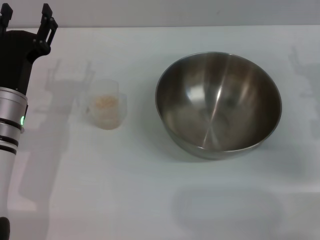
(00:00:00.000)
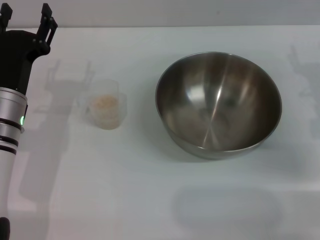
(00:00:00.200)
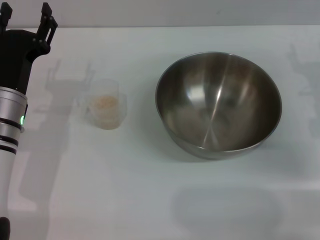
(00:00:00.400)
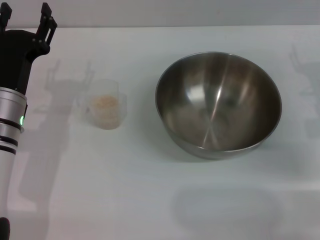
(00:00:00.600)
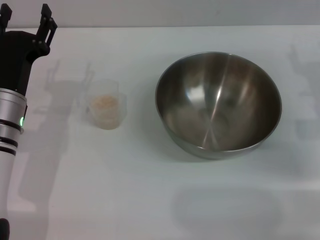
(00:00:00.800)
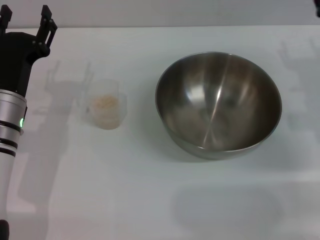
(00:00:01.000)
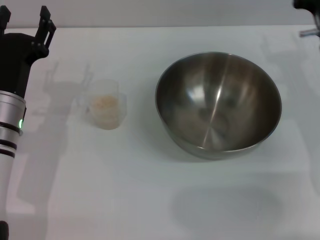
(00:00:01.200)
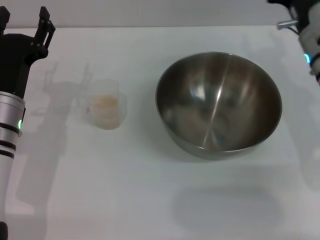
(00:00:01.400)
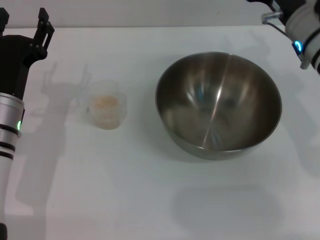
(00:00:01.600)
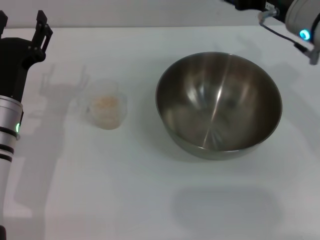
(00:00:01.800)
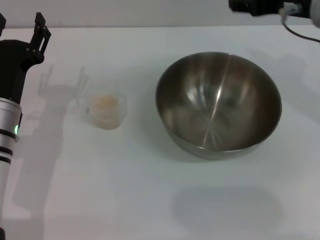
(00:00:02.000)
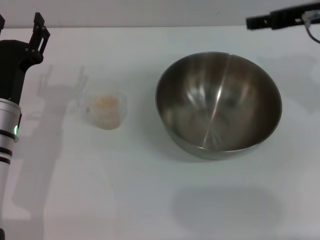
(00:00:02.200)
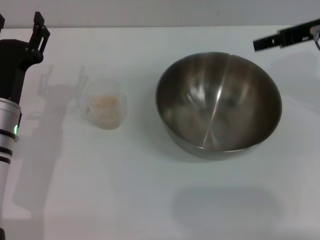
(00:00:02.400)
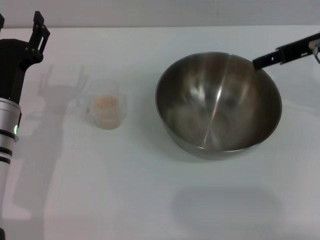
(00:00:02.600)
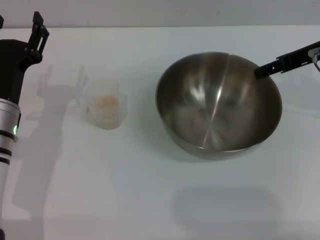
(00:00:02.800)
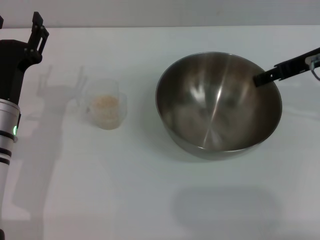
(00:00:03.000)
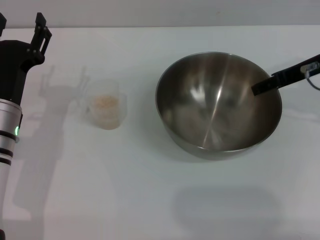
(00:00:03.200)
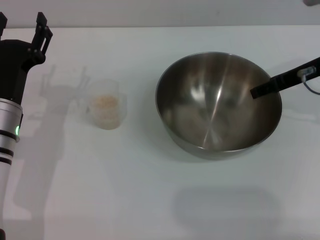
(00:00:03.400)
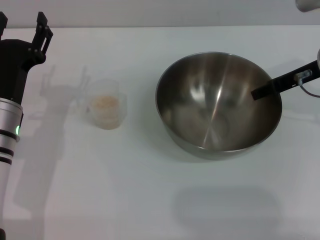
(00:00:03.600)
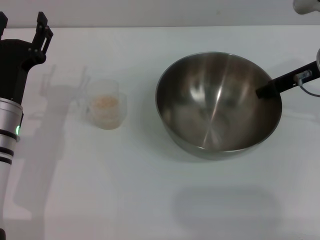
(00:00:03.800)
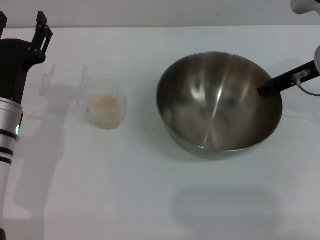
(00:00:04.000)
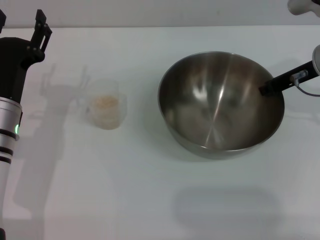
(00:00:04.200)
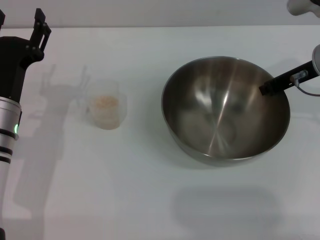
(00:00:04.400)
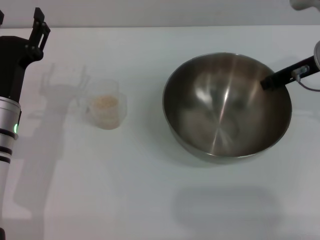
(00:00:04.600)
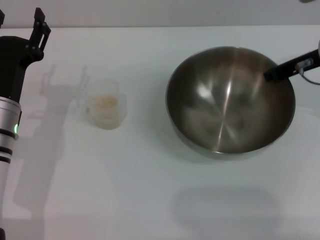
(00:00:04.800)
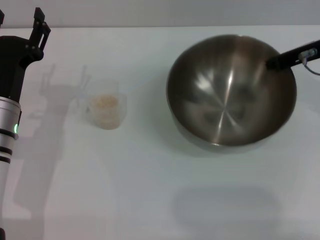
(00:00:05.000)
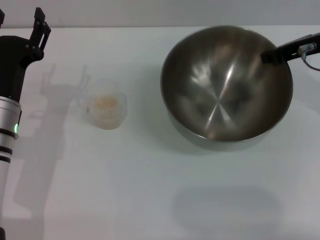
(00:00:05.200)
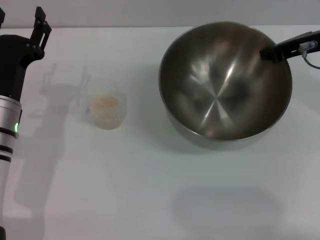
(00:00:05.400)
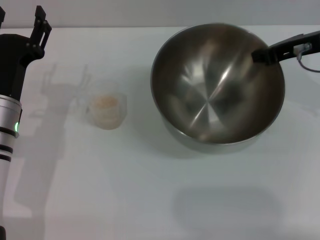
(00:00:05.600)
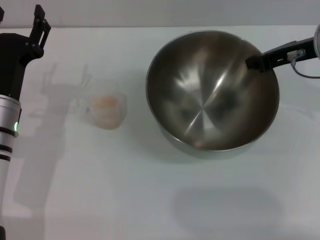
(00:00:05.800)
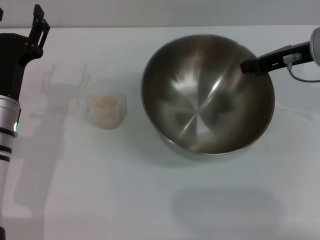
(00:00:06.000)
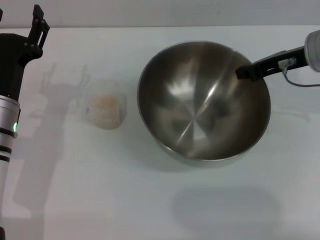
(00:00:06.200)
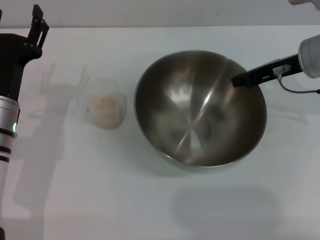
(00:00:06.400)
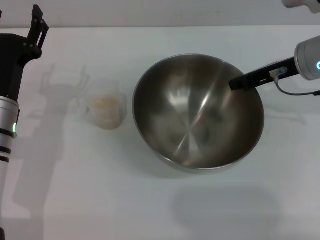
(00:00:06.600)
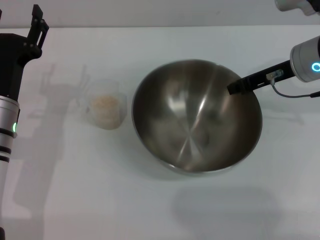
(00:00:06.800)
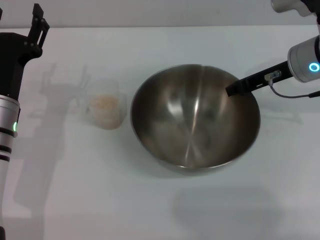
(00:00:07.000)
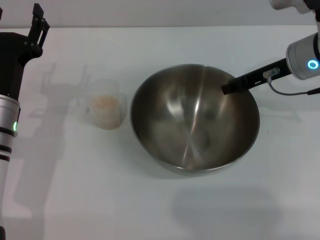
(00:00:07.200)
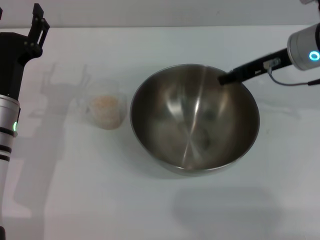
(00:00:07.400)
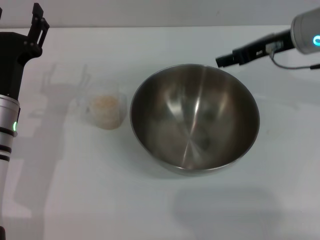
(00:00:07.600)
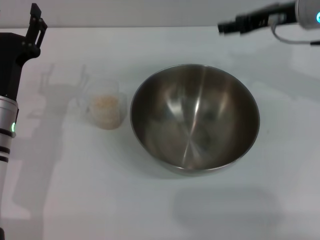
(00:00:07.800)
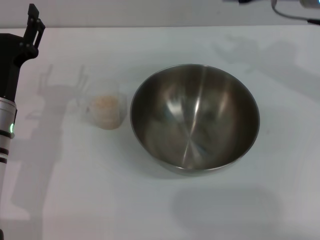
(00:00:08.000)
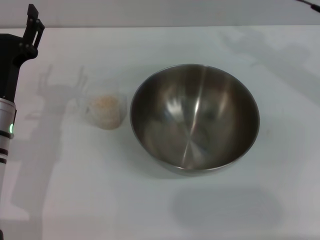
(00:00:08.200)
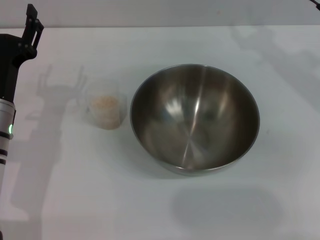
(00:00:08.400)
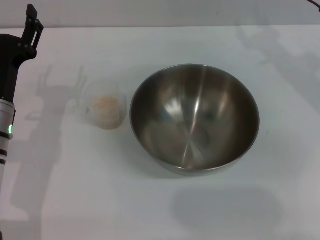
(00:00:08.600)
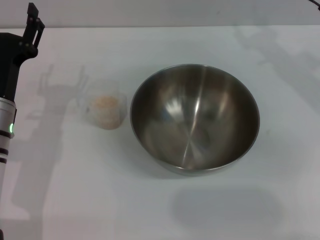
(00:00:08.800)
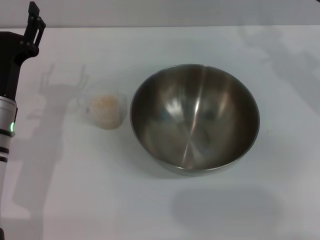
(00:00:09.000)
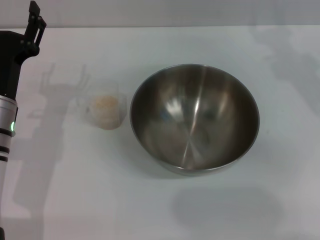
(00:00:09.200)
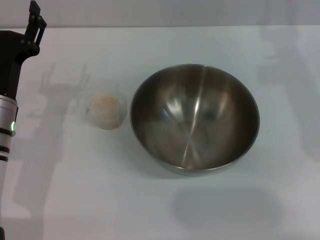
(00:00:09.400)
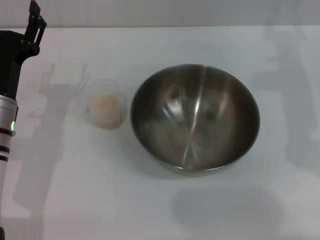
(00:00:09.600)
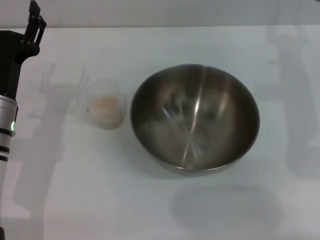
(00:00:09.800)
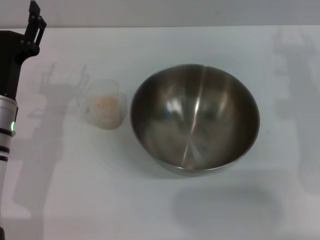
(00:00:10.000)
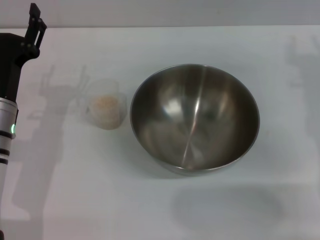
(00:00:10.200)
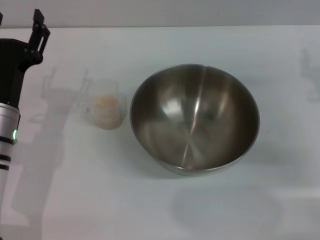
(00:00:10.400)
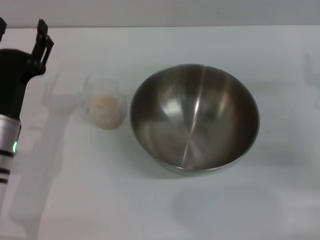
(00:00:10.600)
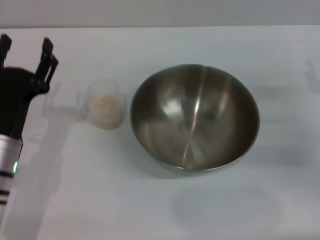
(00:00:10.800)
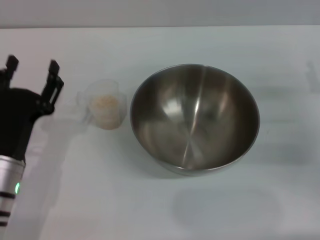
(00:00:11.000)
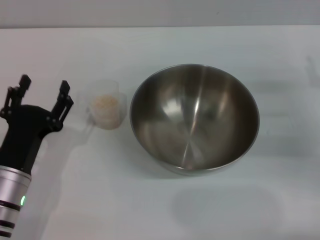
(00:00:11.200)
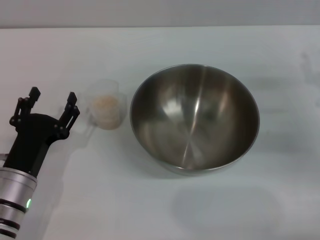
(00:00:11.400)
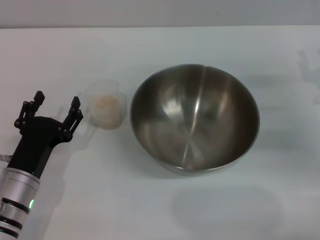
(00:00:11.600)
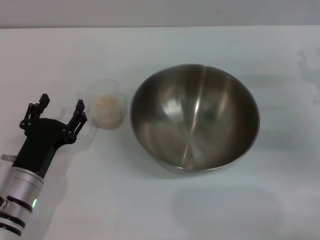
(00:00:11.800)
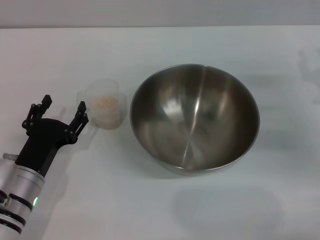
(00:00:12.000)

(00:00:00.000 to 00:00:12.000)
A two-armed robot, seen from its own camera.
Task of the whole recording: Place the bowl in the middle of the table with one hand and pour the rice from the grain cup into it with the other hand.
Step, 00:00:00.000 - 00:00:05.400: Pick up the bowl with the right gripper.
Step, 00:00:05.600 - 00:00:07.600: Place the bowl in the center of view with the right gripper.
00:00:00.000 - 00:00:01.600: The right gripper shifts approximately 10 cm to the left and upward.
00:00:01.600 - 00:00:03.000: The right gripper travels to the right by approximately 5 cm.
00:00:03.000 - 00:00:04.400: The right gripper closes up.
00:00:06.000 - 00:00:07.600: The right gripper opens.
00:00:10.400 - 00:00:12.000: The left gripper is displaced downward and backward by about 10 cm.

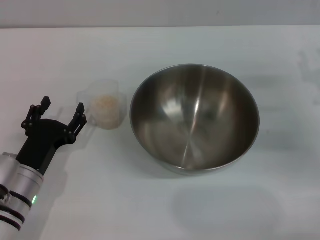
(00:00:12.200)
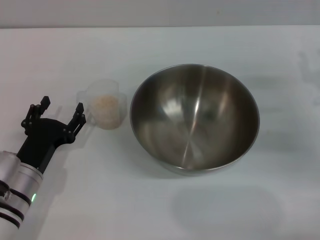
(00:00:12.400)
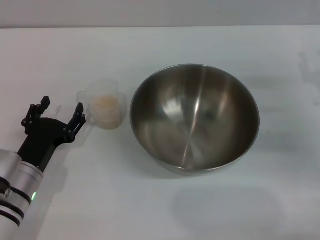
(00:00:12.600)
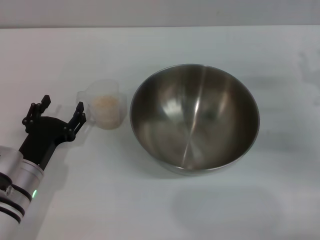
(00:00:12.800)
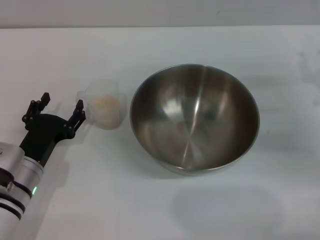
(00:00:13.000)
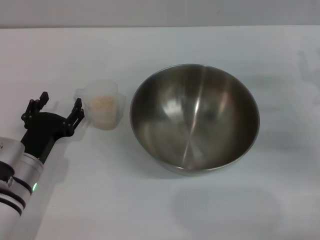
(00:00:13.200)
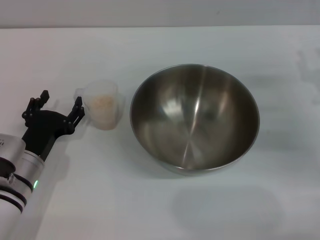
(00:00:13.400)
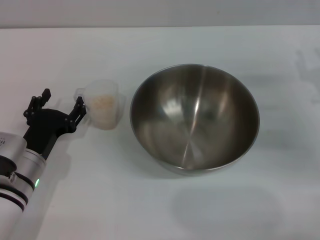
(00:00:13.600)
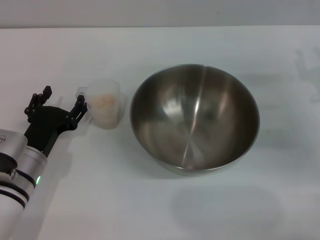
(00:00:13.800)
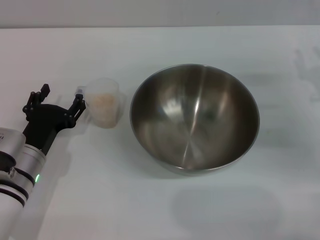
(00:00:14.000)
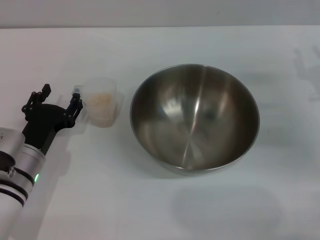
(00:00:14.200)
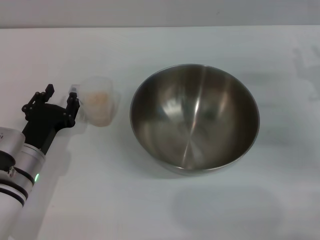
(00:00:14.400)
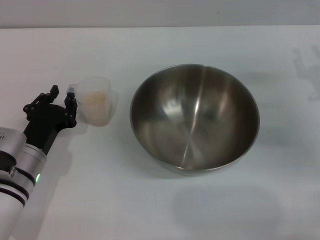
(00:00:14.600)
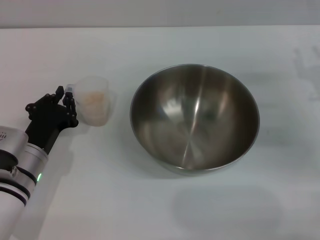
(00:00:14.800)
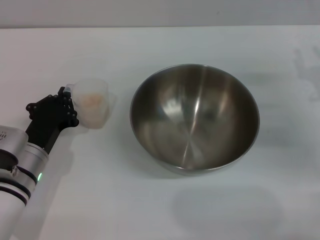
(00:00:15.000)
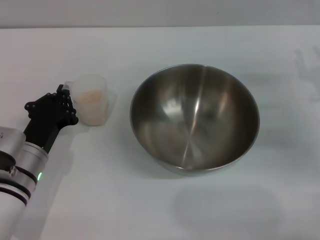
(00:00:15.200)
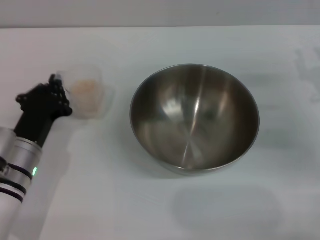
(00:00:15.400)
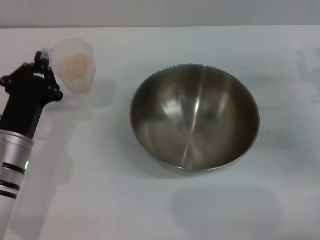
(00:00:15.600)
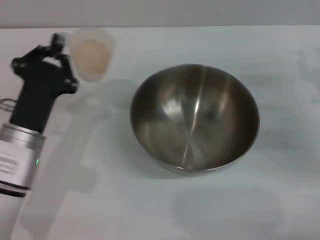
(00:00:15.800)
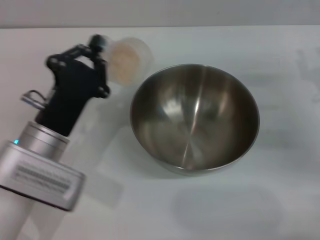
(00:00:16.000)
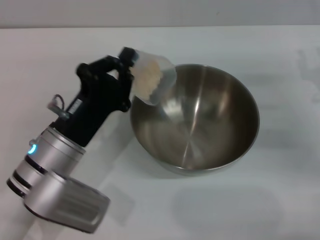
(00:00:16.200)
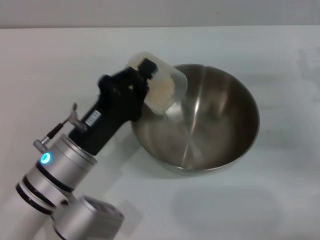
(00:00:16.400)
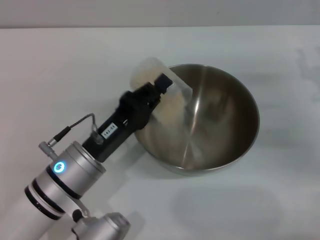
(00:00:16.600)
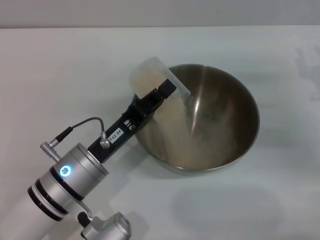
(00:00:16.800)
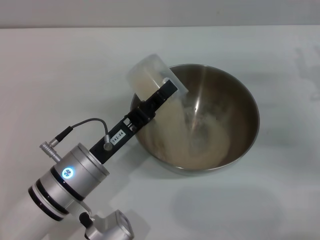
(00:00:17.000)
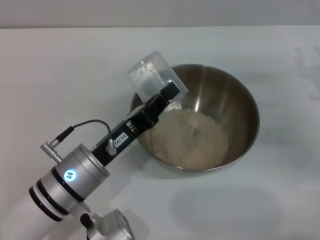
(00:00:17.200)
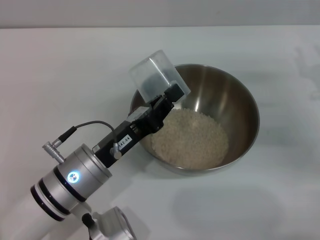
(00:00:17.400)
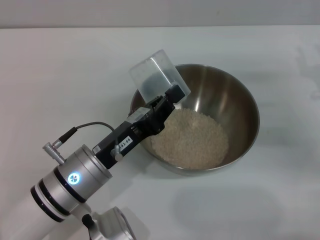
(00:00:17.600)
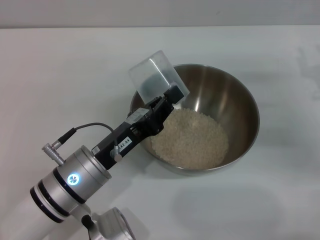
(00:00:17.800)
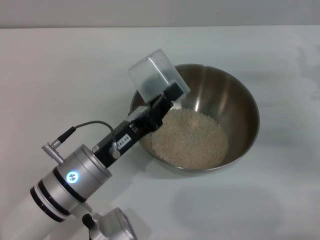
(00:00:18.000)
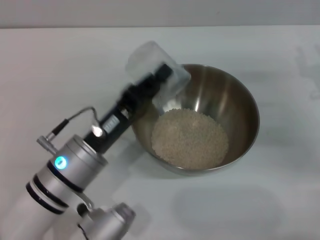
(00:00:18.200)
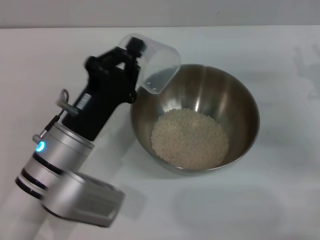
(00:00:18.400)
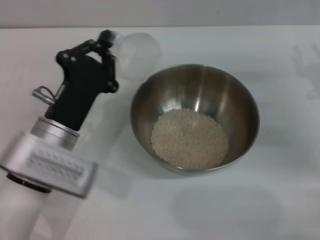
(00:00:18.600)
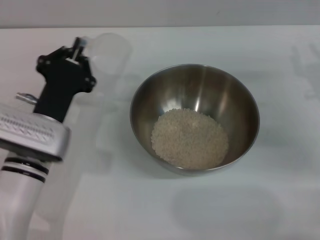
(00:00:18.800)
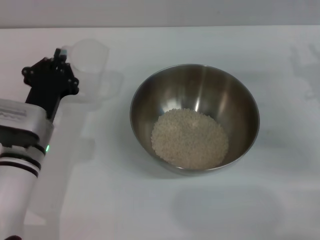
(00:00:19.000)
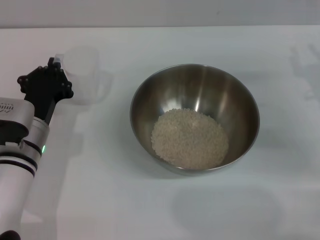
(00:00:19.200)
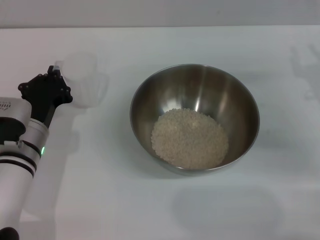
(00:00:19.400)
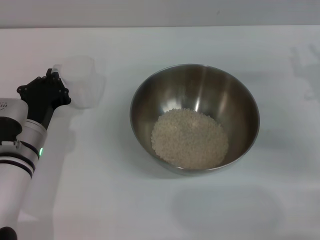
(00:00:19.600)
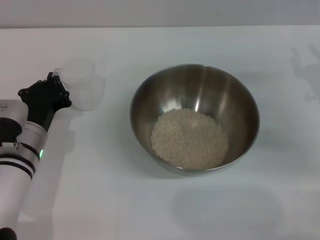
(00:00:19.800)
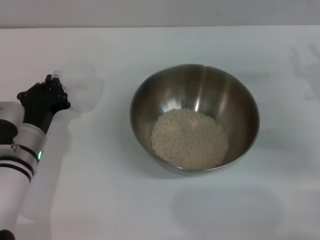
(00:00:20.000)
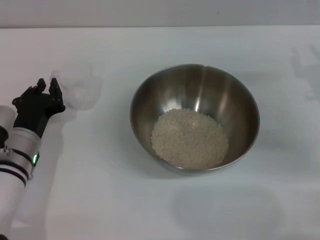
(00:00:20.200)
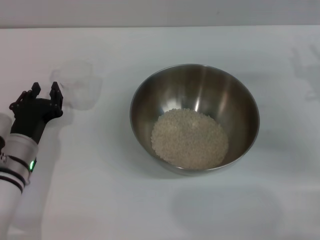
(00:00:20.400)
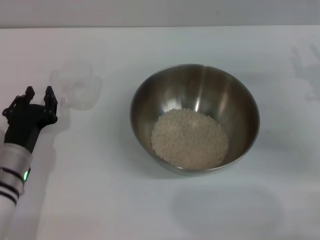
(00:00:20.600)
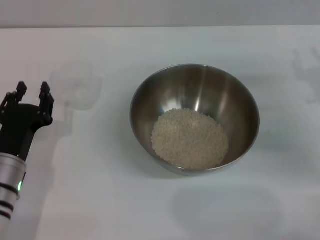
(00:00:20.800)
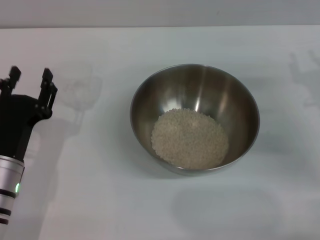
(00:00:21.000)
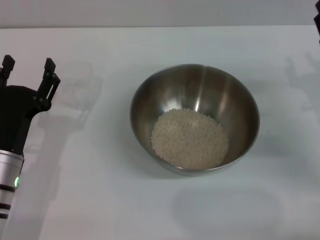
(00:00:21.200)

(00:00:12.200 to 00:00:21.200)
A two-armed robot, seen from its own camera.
Task of the whole recording: Place the bowl in the middle of the table with one hand and pour the rice from the grain cup into it with the other hand.
Step, 00:00:12.200 - 00:00:15.800: Pick up the cup with rice in it with the left gripper.
Step, 00:00:16.000 - 00:00:18.200: Pour the rice from the cup into the bowl with the left gripper.
Step, 00:00:18.400 - 00:00:20.600: Place the cup on the table with the left gripper.
00:00:12.200 - 00:00:13.800: The grippers move only a little.
00:00:13.800 - 00:00:15.200: The left gripper closes up.
00:00:15.200 - 00:00:16.600: The left gripper travels to the right by about 5 cm.
00:00:18.200 - 00:00:19.800: The left gripper shifts approximately 10 cm to the left and forward.
00:00:19.800 - 00:00:21.200: The left gripper moves backward, approximately 5 cm, and opens up.
